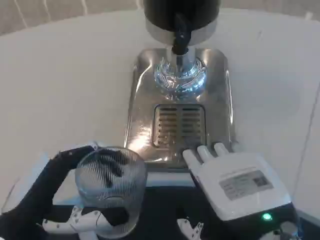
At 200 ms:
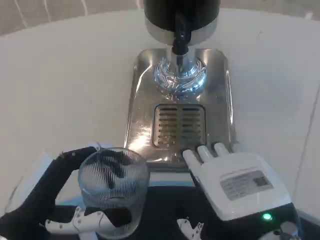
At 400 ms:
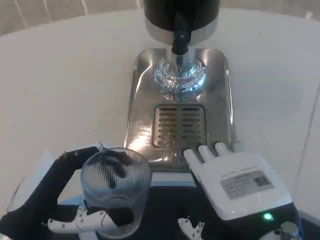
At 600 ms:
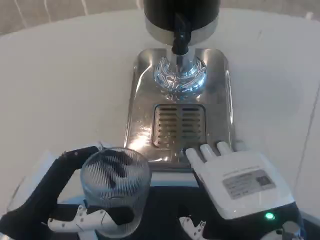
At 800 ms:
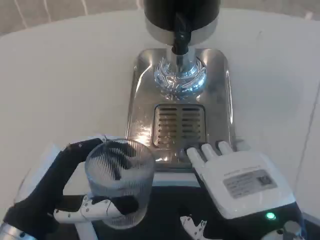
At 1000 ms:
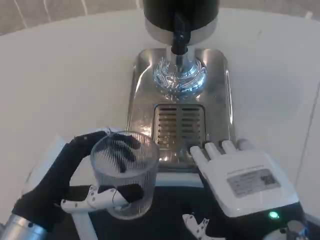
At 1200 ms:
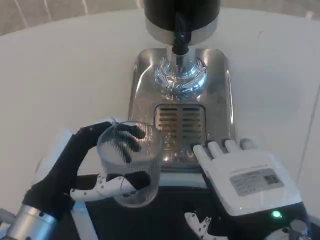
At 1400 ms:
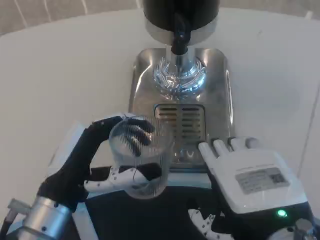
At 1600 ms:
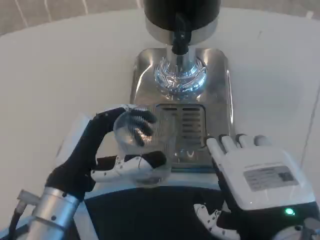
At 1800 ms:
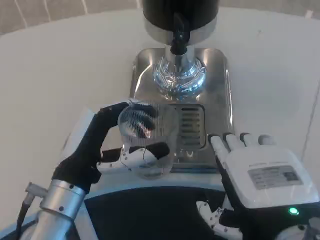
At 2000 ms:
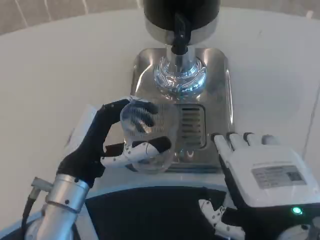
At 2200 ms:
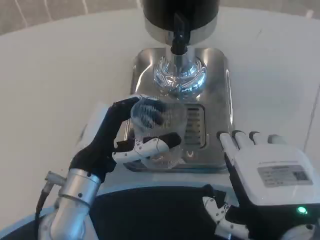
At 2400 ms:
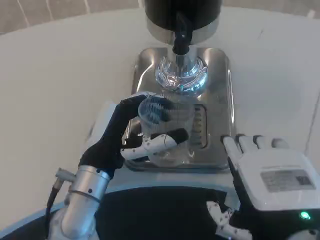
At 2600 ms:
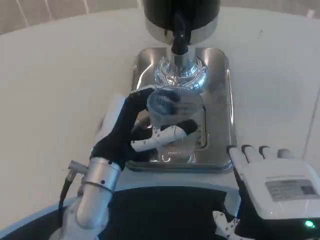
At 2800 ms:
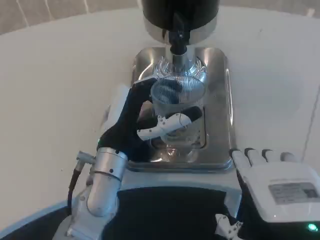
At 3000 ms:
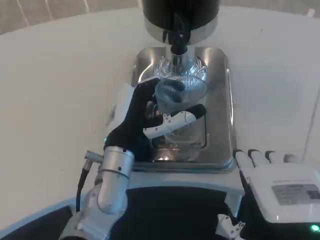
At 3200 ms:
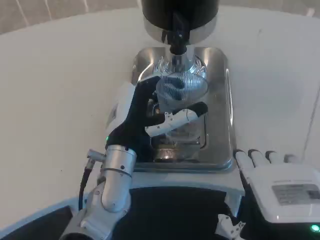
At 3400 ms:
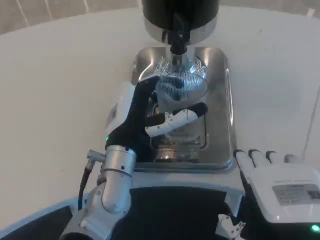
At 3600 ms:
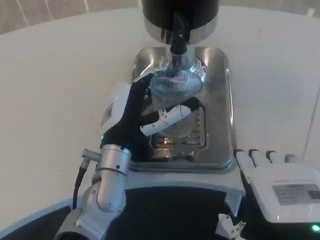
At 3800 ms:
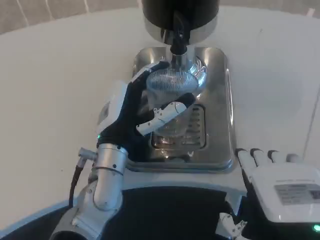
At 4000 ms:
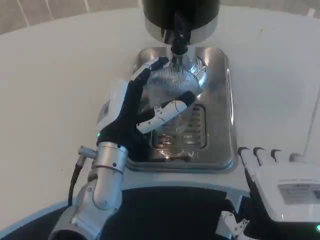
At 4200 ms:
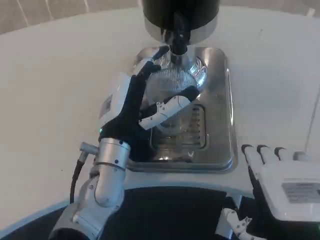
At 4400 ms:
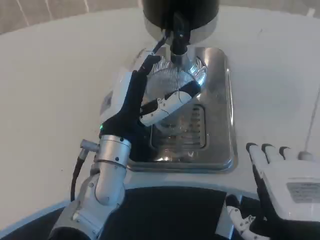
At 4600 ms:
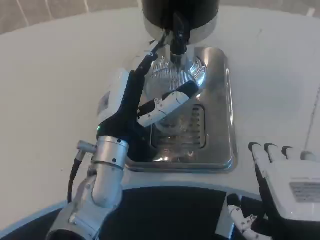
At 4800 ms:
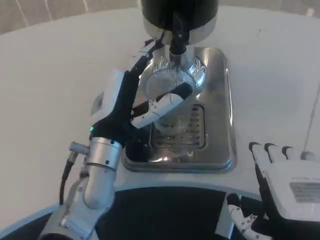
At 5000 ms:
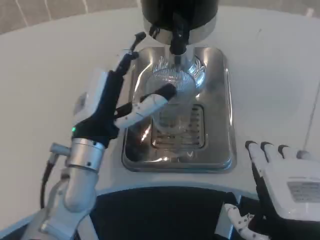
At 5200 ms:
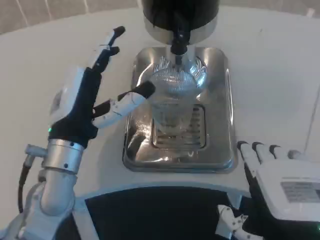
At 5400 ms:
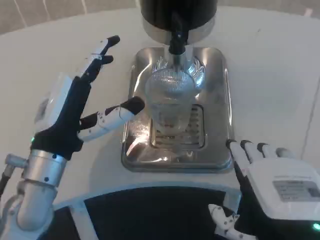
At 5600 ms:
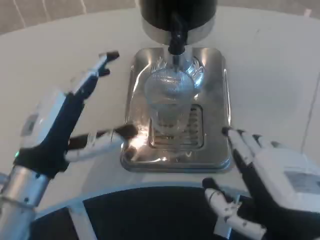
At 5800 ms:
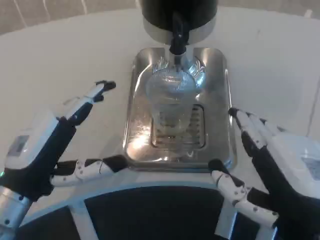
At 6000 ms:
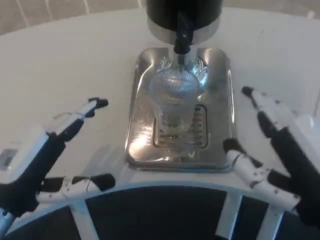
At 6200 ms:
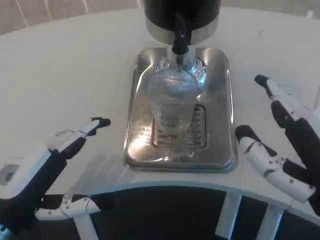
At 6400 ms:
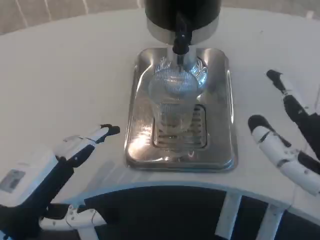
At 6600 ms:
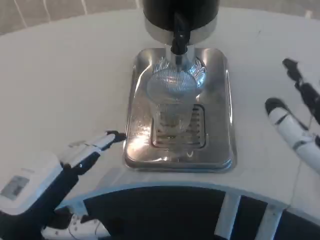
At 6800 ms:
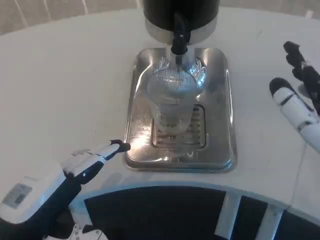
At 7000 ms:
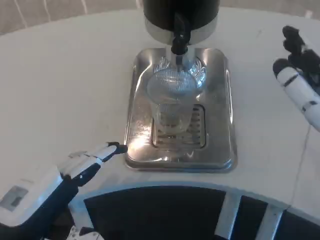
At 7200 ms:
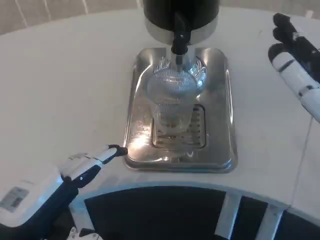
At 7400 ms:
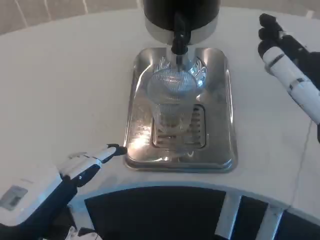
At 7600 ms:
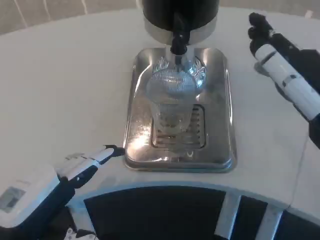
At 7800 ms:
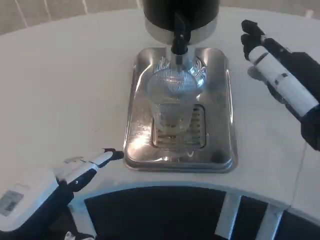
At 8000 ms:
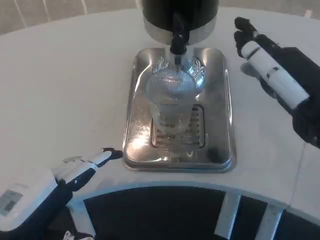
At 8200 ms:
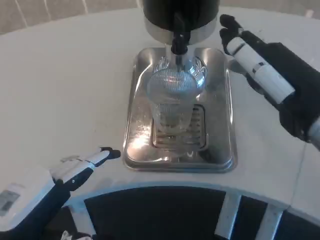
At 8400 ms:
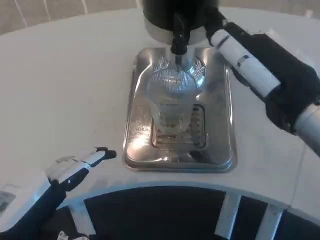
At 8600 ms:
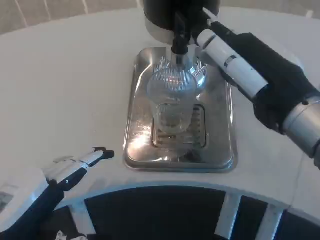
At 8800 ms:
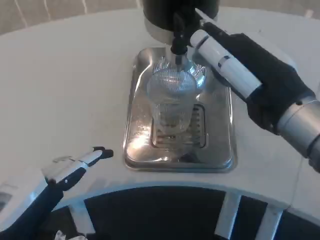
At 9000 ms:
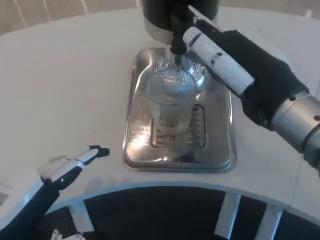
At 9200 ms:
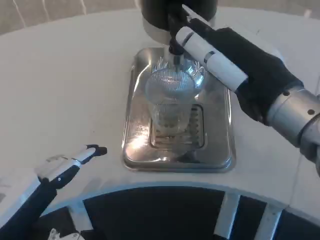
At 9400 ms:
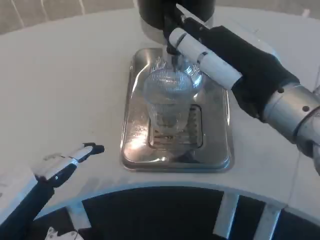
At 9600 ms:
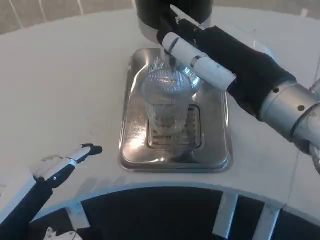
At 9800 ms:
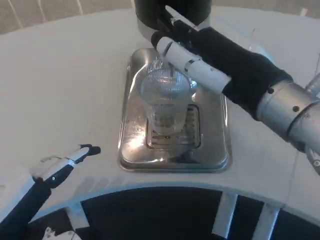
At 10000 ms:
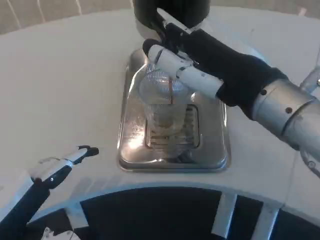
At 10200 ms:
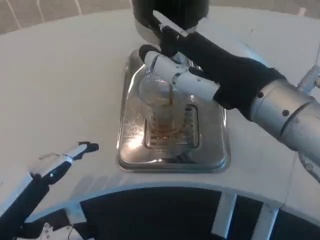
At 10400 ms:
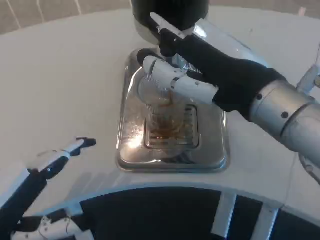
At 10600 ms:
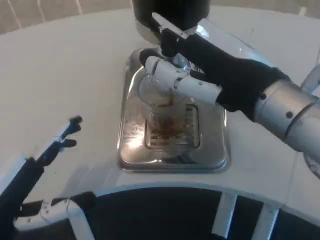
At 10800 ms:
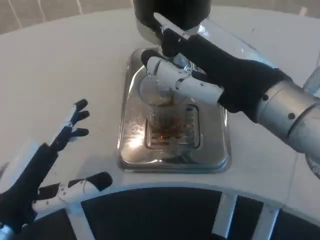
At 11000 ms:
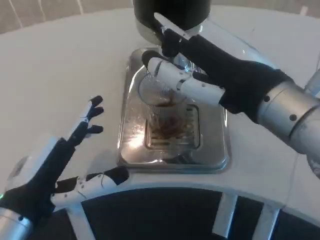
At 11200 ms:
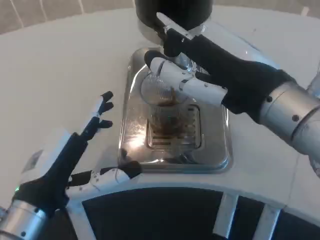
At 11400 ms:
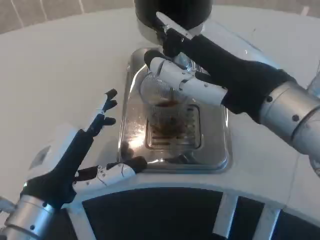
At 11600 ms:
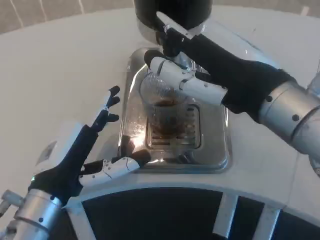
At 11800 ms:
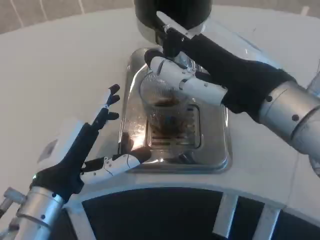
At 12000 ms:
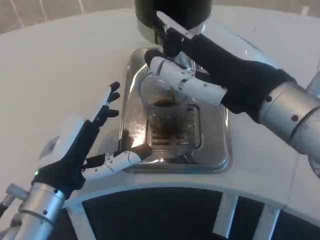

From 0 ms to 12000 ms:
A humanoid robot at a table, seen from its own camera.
Task of the whole recording: Grasp the cup under the faucet to collect the drink, then remove the cup.
From 0 ms to 1600 ms: The left hand travels forward and to the right by some 10 cm.
From 1600 ms to 3000 ms: The left hand is displaced to the right and forward by approximately 10 cm.
From 3000 ms to 4400 ms: The hands stay close to where they were, moving slightly.
From 4400 ms to 6000 ms: The left hand is displaced to the left and backward by roughly 20 cm.
From 6000 ms to 7600 ms: The right hand shifts roughly 5 cm forward.
From 7600 ms to 9000 ms: The right hand changes place by approximately 5 cm.
From 10400 ms to 12000 ms: The left hand heads forward and to the right, covering about 10 cm.

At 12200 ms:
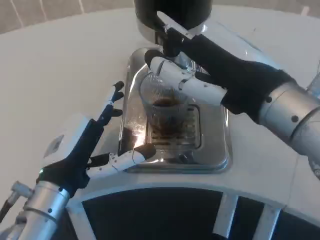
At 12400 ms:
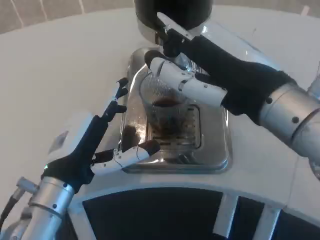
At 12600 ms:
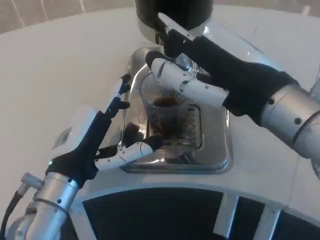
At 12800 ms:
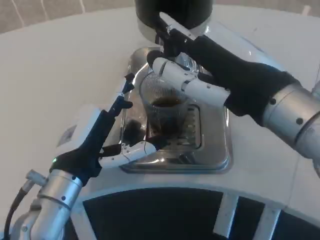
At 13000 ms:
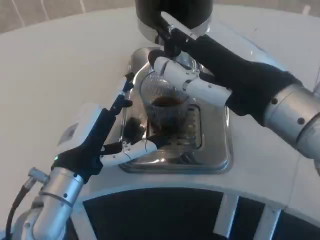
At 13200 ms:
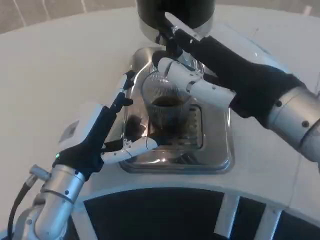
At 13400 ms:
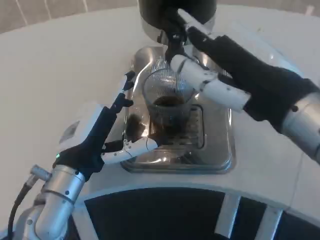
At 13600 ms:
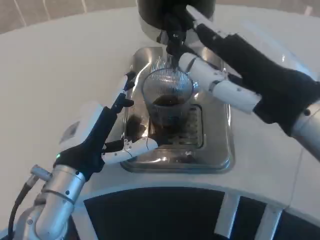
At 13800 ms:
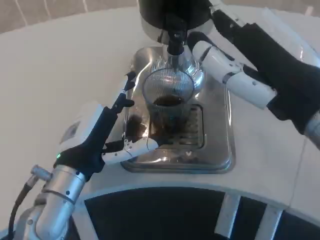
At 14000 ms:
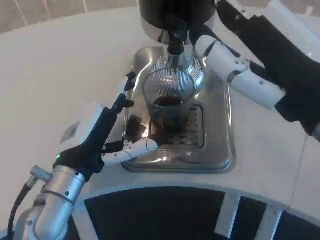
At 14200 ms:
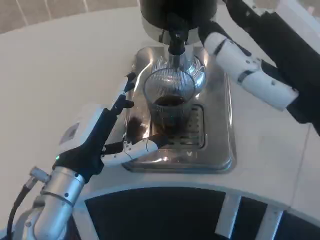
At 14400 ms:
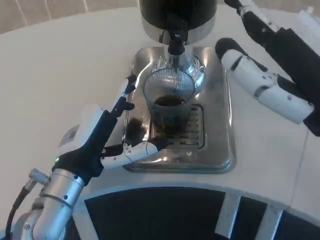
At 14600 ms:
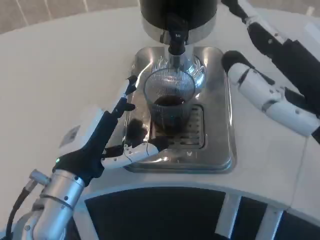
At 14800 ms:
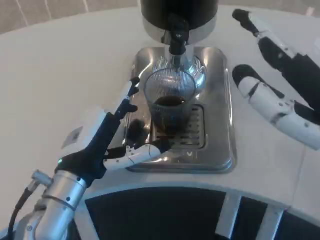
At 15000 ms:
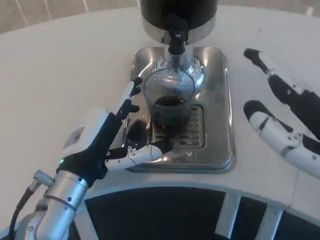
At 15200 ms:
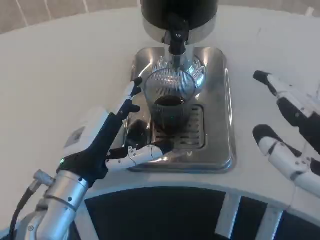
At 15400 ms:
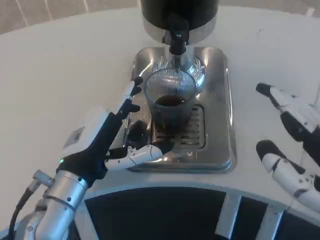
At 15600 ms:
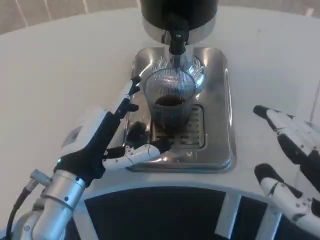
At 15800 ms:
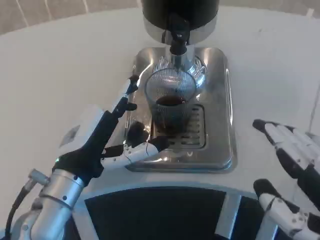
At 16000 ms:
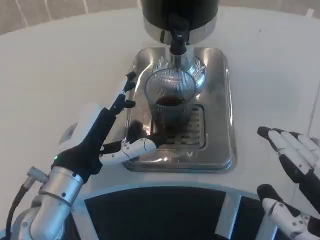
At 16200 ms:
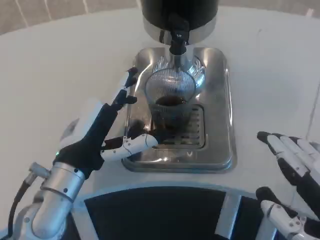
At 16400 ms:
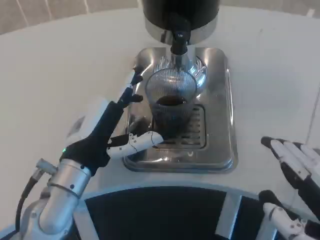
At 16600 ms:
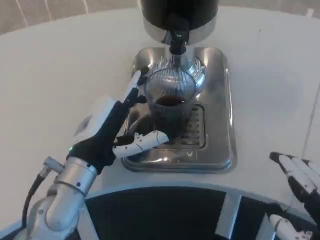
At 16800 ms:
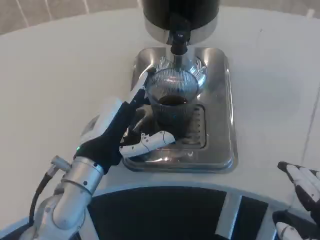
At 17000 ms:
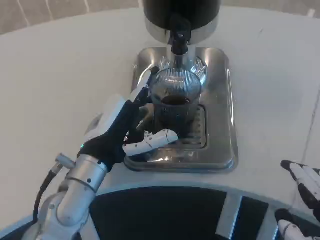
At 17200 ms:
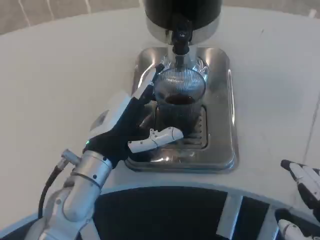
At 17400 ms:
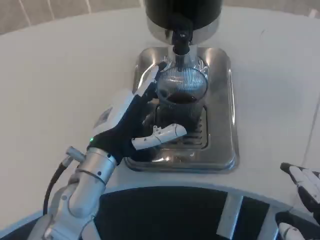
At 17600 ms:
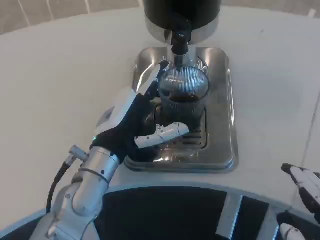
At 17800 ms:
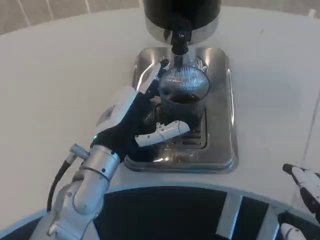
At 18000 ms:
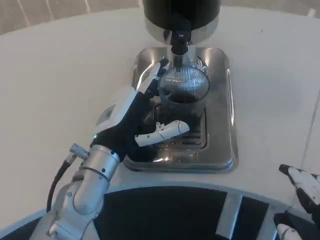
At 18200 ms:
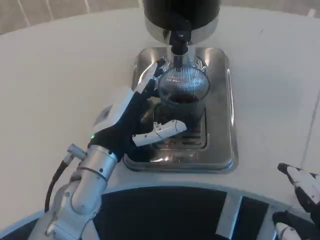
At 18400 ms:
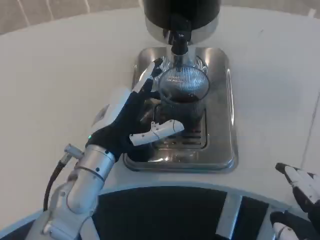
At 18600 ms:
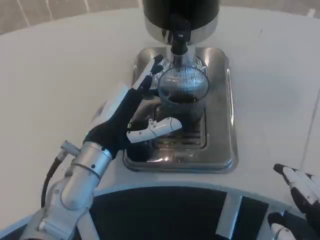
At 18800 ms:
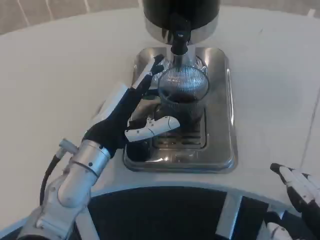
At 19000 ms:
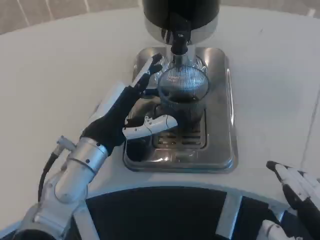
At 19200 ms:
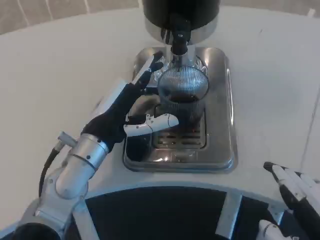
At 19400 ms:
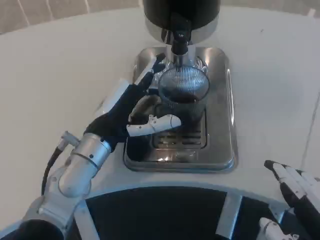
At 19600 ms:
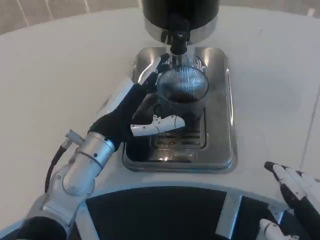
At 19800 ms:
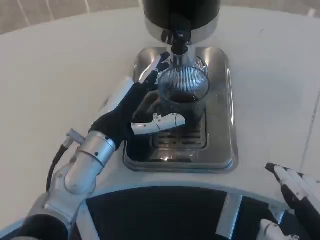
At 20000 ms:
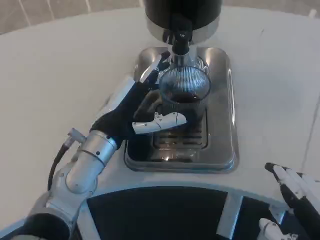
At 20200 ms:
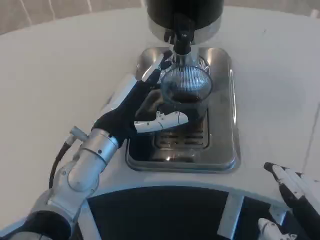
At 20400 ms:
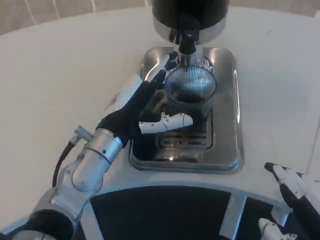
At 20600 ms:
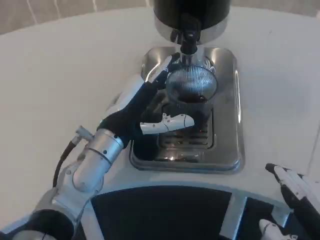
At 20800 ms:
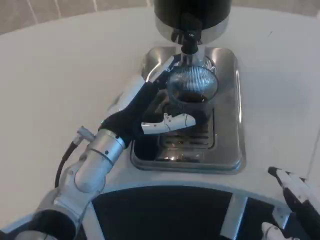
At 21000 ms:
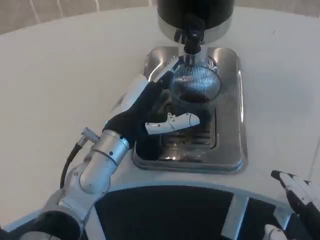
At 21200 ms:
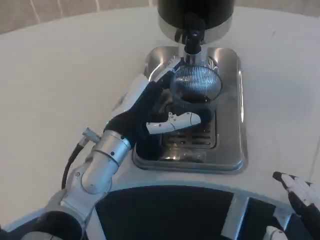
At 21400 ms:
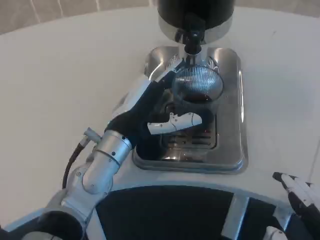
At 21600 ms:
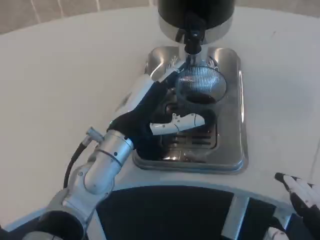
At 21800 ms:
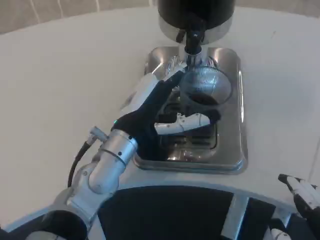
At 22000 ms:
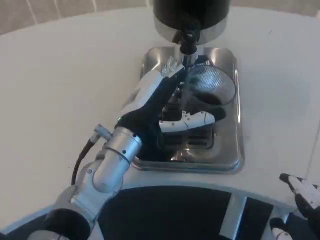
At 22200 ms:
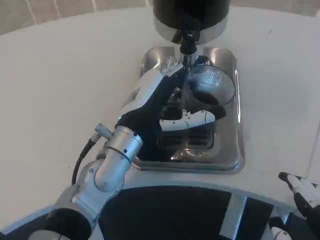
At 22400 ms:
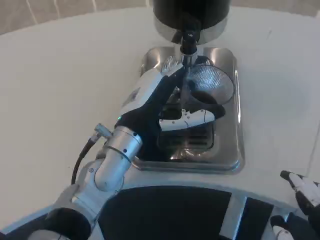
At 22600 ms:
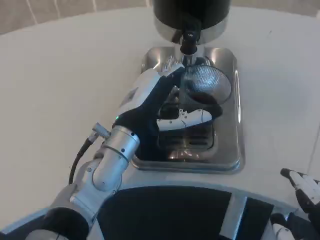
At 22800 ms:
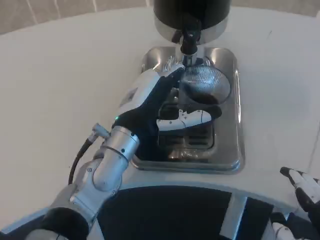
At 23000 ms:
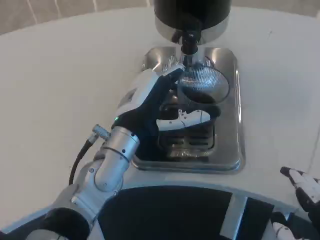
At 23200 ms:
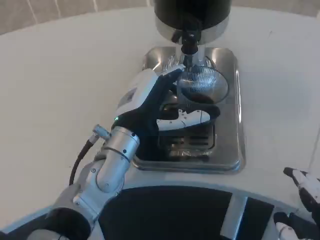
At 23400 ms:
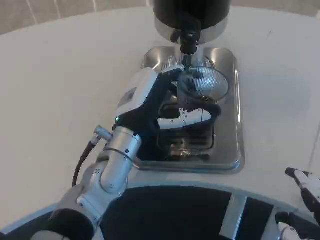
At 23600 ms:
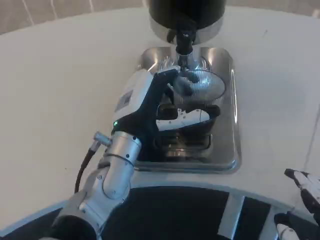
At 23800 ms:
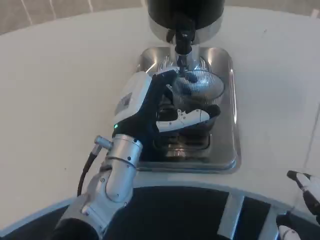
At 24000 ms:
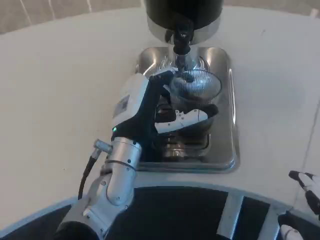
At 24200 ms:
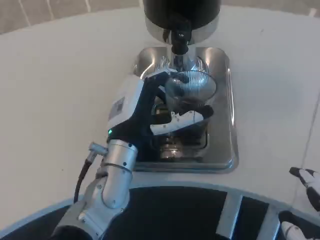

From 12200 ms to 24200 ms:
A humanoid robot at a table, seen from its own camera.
Task of the whole recording: Grasp the cup under the faucet to collect the drink, then remove the cup.
From 13800 ms to 15200 ms: The right hand heads backward, to the right and downward, covering about 10 cm.
From 15200 ms to 16600 ms: The right hand ends up roughly 5 cm from where it was.
From 16600 ms to 19800 ms: The hands move only a little.
From 21200 ms to 22600 ms: The hands stay close to where they were, moving slightly.
